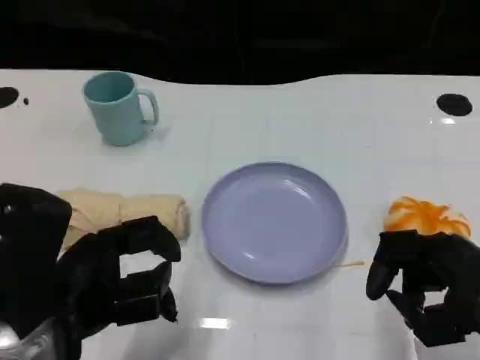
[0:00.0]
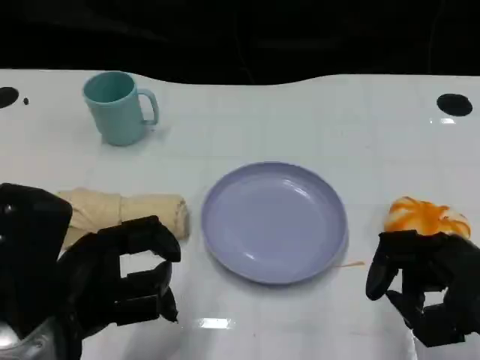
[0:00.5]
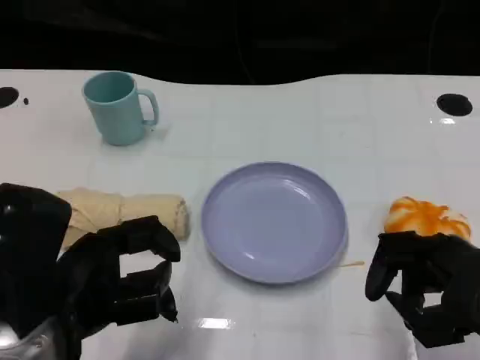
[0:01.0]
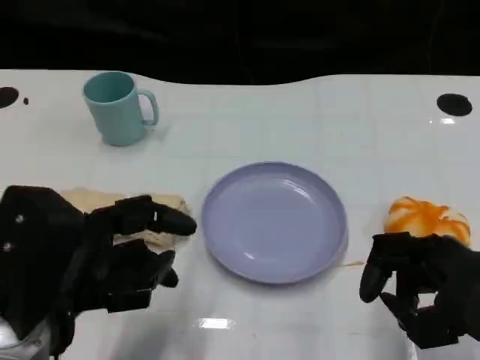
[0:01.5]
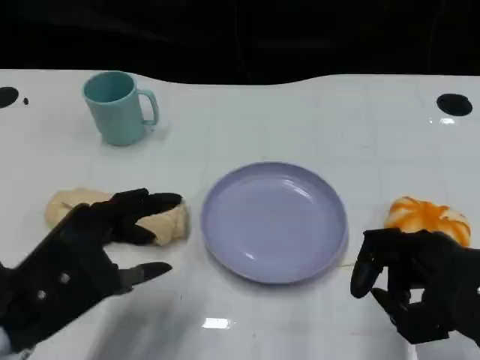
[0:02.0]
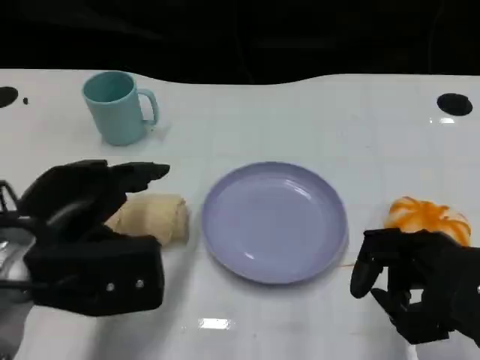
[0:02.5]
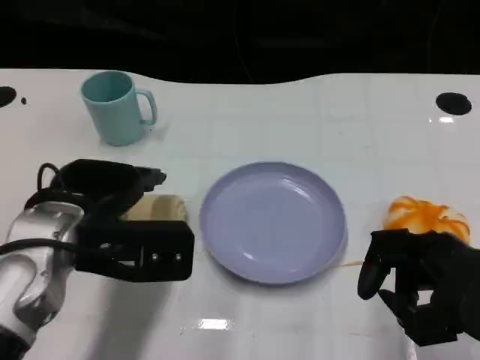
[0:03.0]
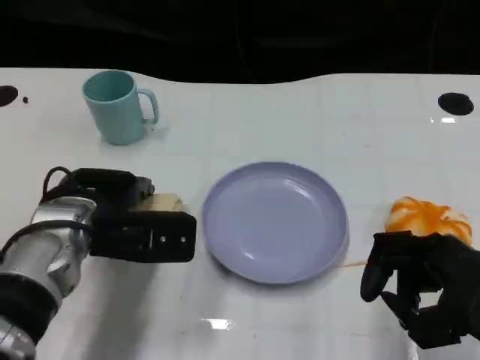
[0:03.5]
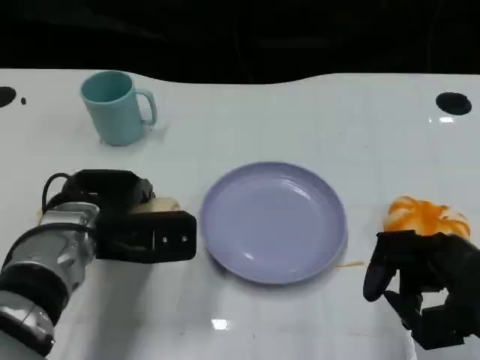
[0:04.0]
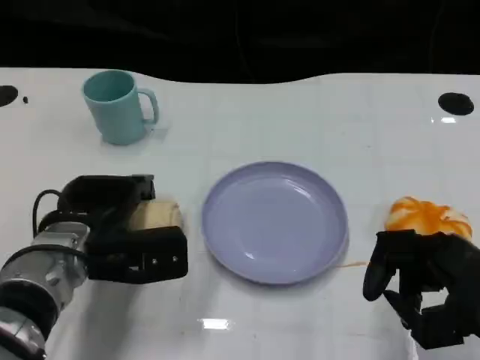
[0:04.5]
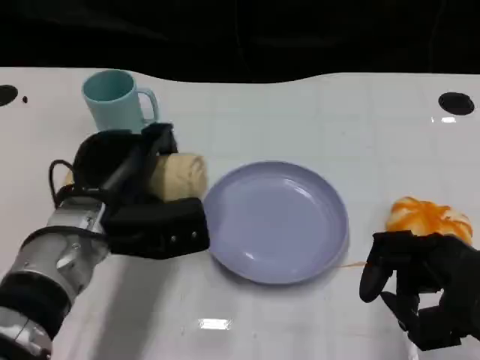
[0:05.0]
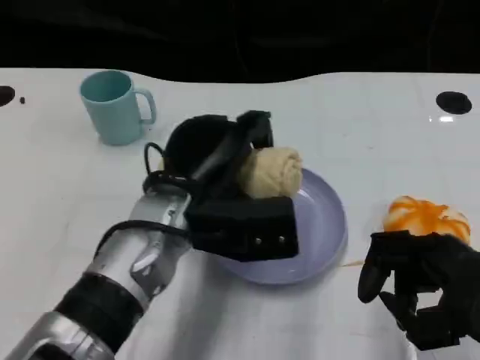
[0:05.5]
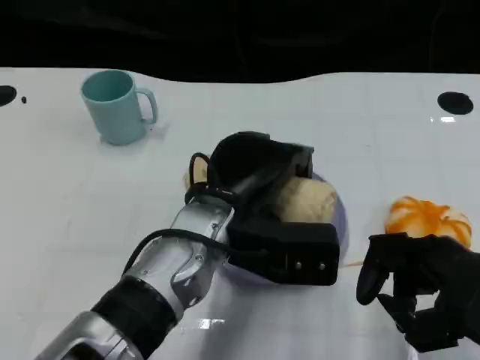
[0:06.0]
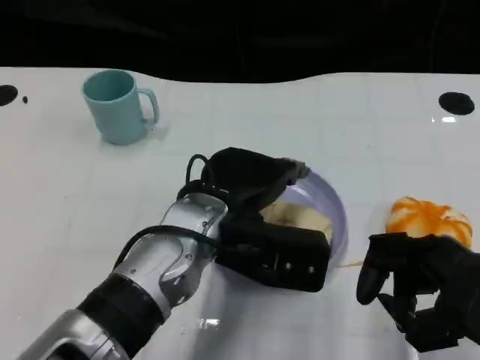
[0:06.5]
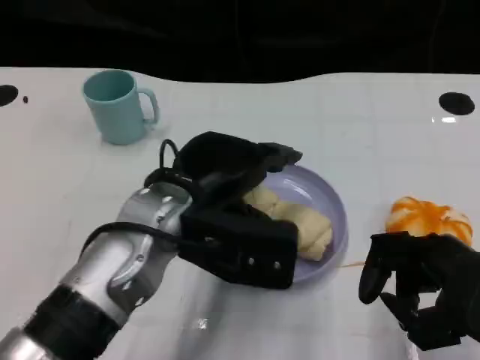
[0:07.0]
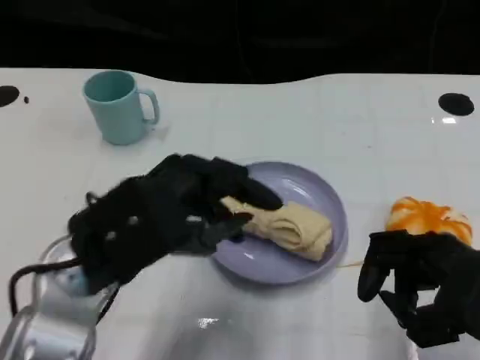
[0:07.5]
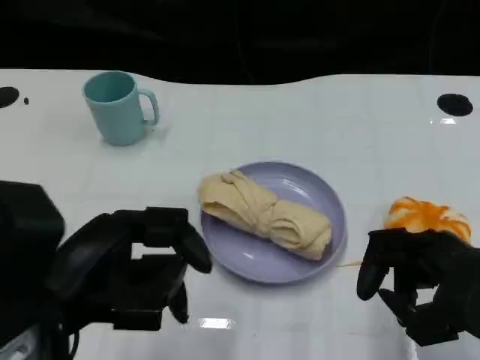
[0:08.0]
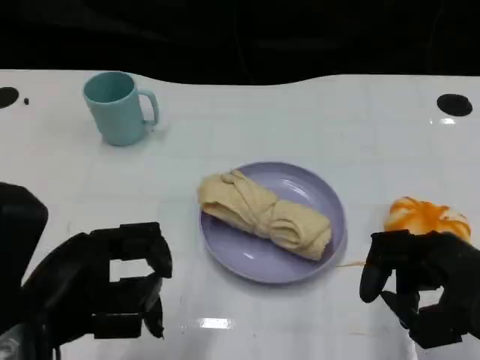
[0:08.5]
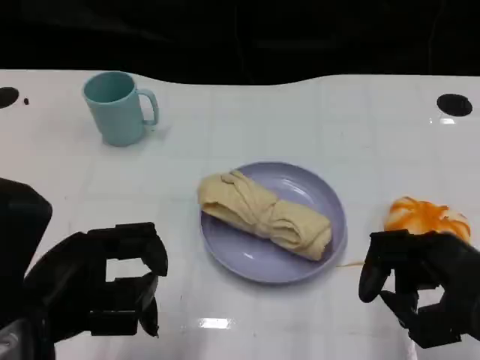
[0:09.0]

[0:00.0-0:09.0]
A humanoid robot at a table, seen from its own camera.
Task of the whole recording: Grasp the towel on the left side of the plate with the left hand and place it into the plate.
0:02.0 to 0:04.5: The left hand heads forward and downward, covering some 15 cm.
0:04.5 to 0:07.0: The left hand moves upward and to the right, roughly 15 cm.
0:07.0 to 0:09.0: The left hand goes about 15 cm to the left and backward.

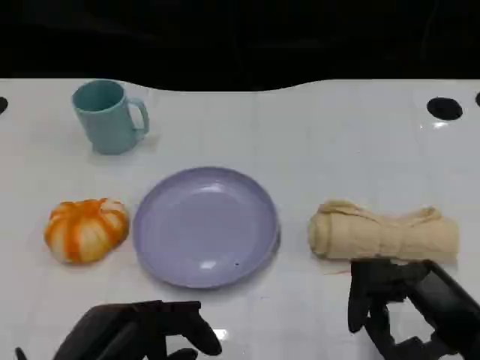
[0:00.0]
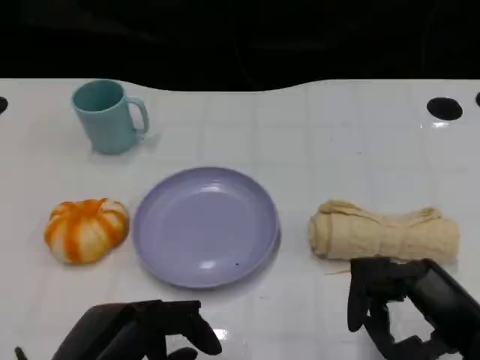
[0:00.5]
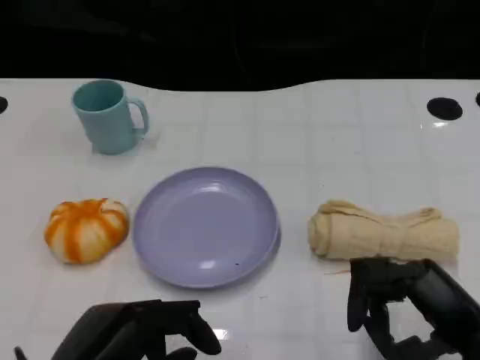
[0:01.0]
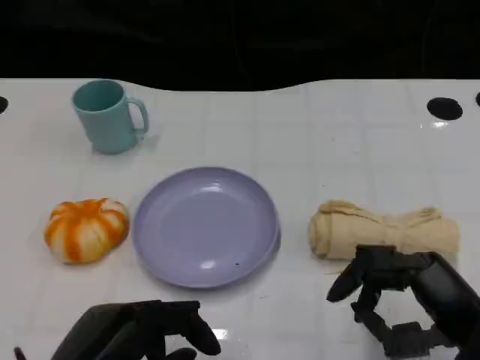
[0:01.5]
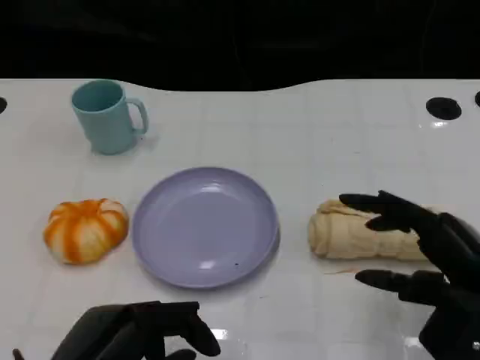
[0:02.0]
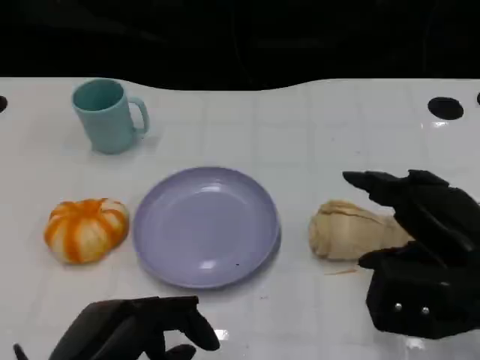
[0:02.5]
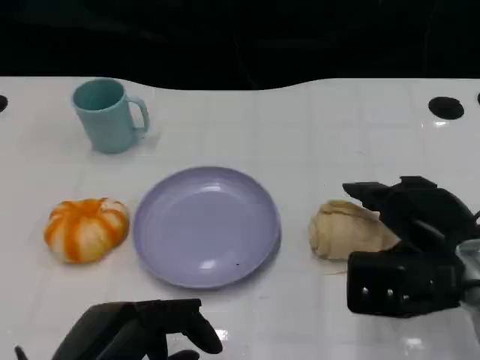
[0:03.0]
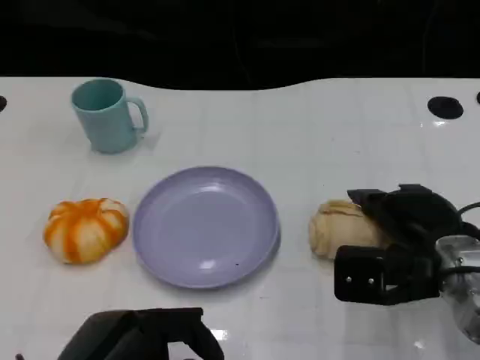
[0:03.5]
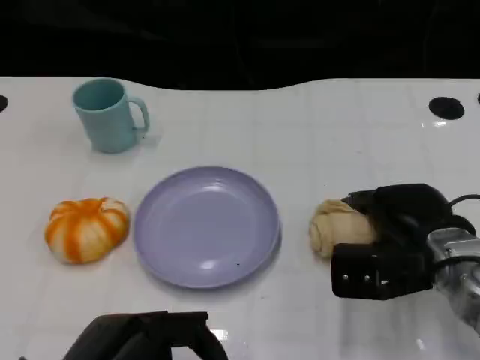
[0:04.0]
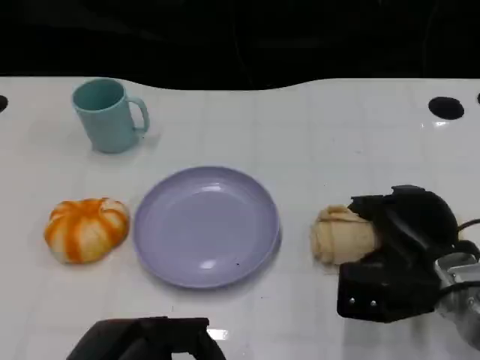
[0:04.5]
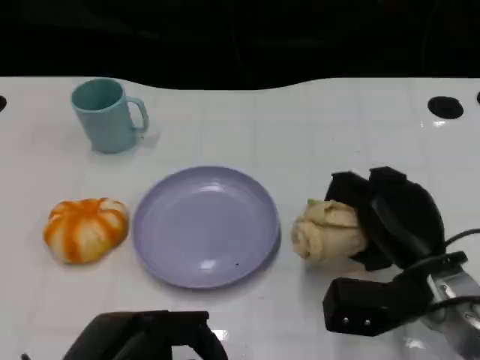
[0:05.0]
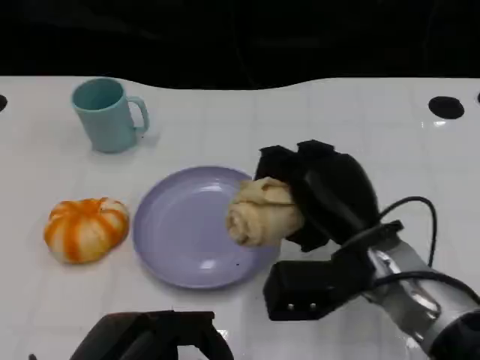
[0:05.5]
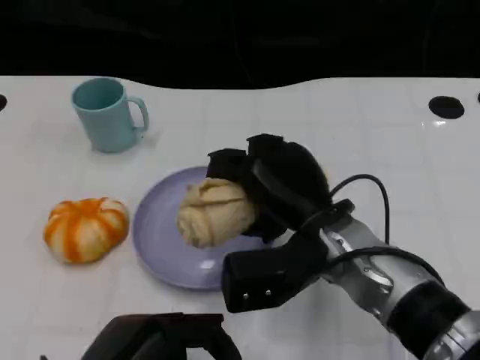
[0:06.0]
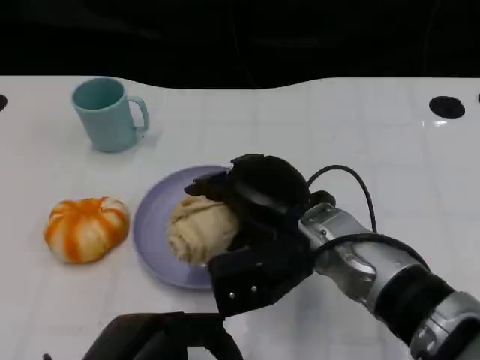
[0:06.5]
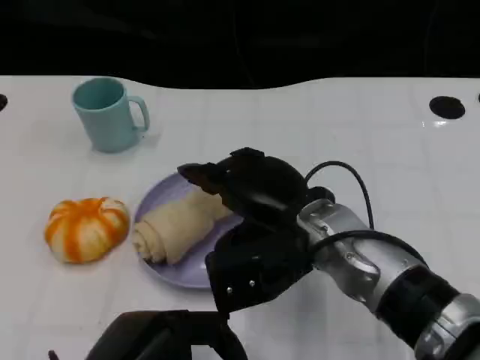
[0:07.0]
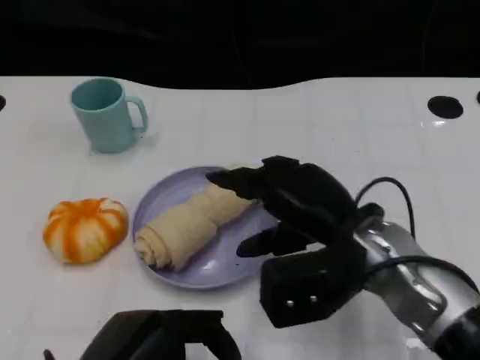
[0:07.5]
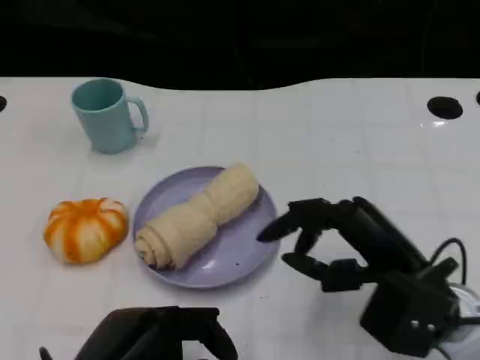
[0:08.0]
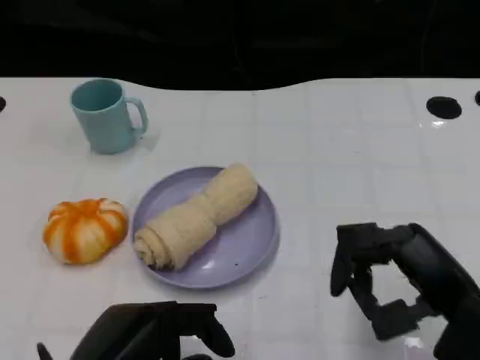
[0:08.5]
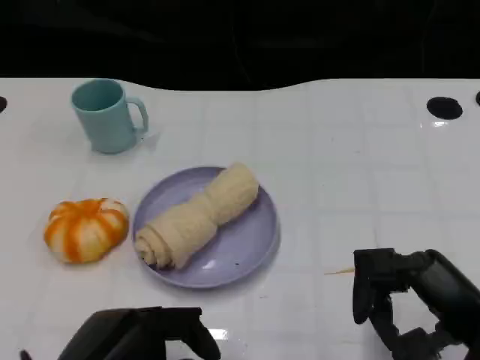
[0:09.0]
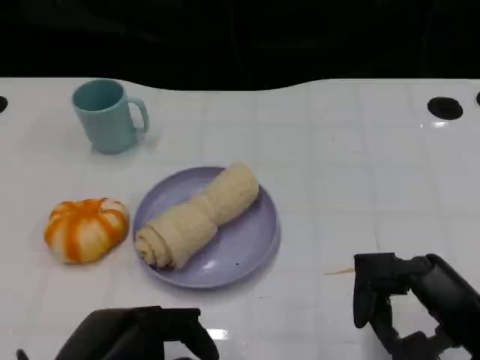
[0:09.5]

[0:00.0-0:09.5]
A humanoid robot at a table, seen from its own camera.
Task of the whole recording: Grasp the towel on the left side of the plate with the left hand and place it into the plate.
0:02.0 to 0:04.0: The right hand goes about 10 cm forward and downward.
0:04.0 to 0:05.5: The right hand goes about 10 cm to the left.
0:07.5 to 0:09.5: The right hand goes about 15 cm to the right and backward.

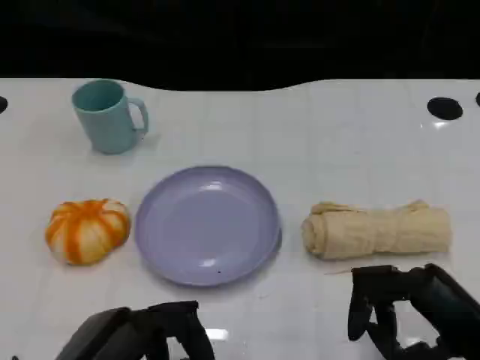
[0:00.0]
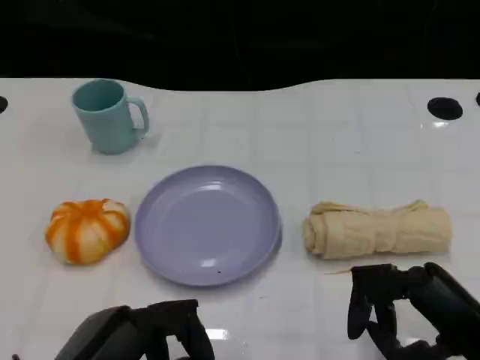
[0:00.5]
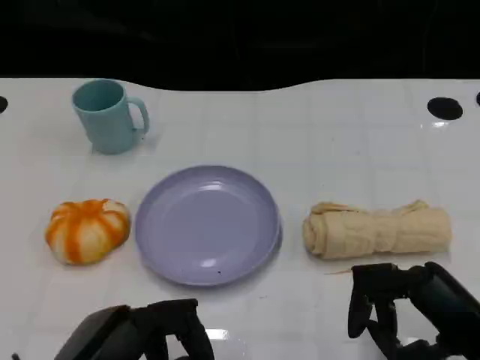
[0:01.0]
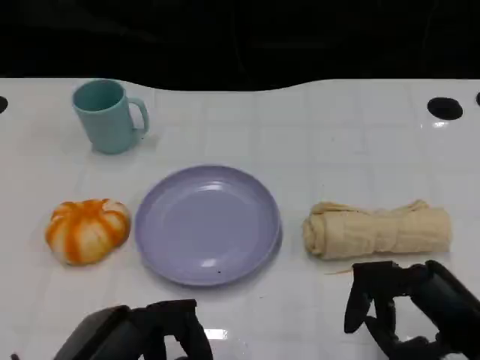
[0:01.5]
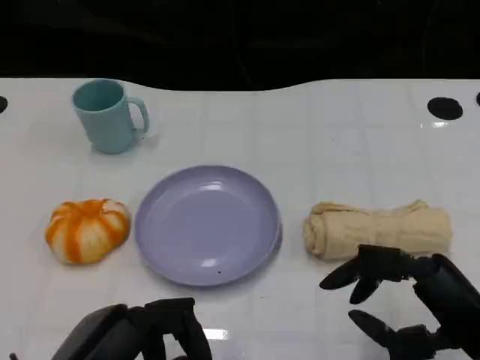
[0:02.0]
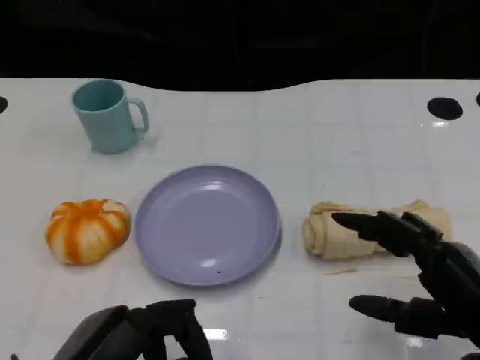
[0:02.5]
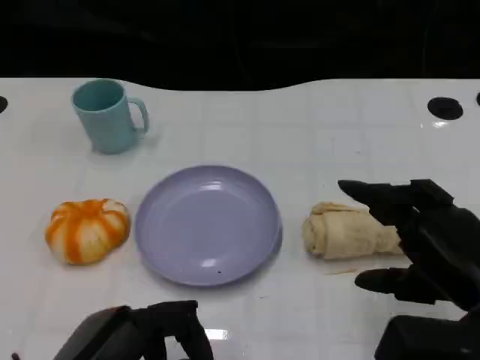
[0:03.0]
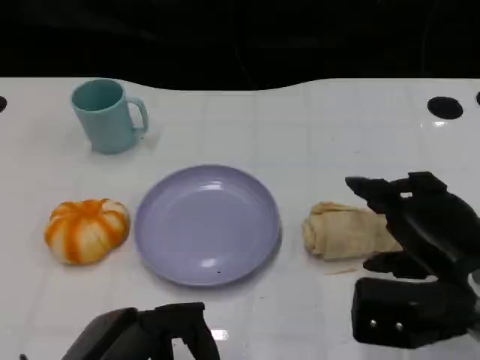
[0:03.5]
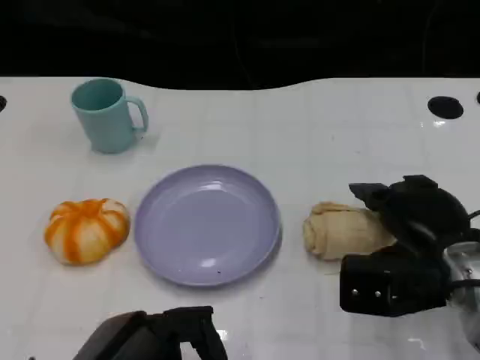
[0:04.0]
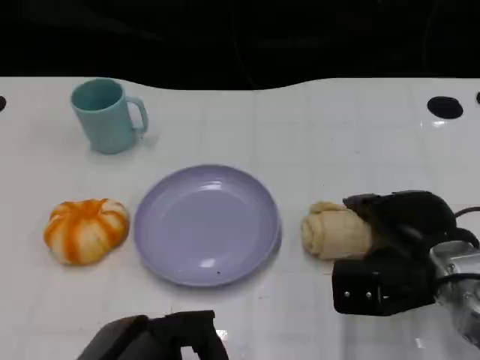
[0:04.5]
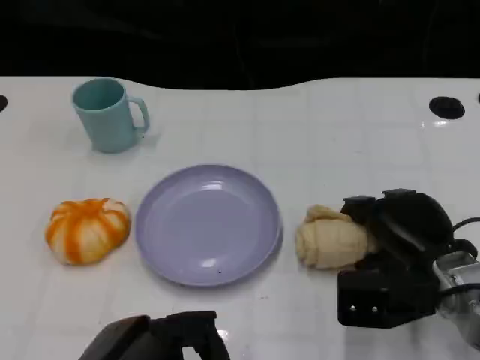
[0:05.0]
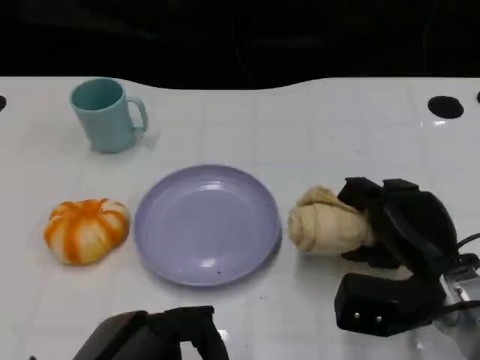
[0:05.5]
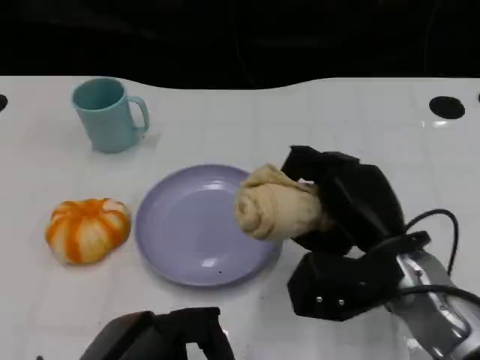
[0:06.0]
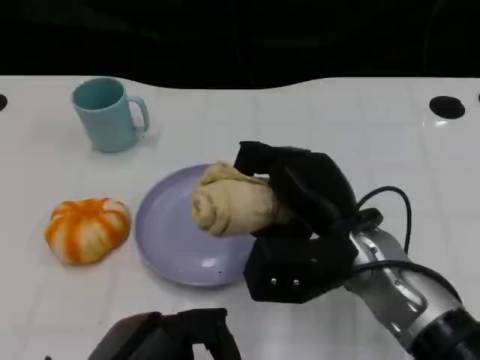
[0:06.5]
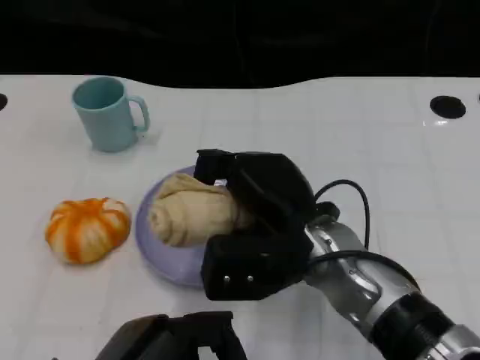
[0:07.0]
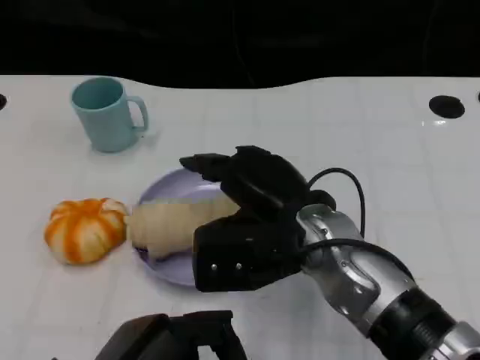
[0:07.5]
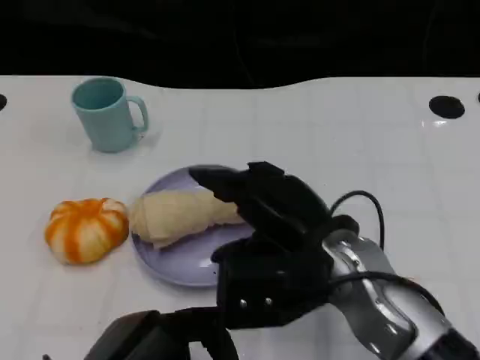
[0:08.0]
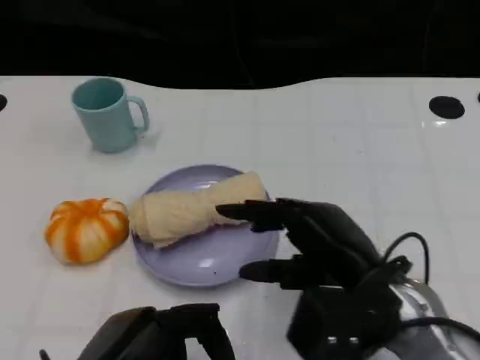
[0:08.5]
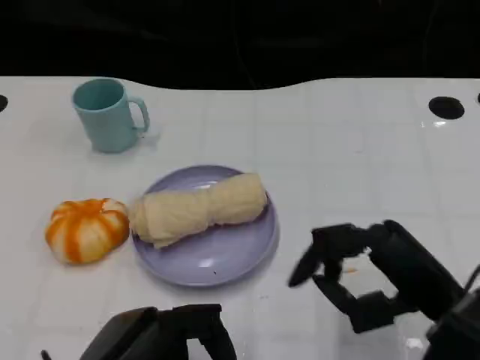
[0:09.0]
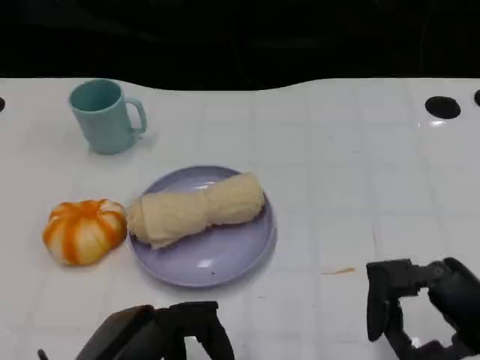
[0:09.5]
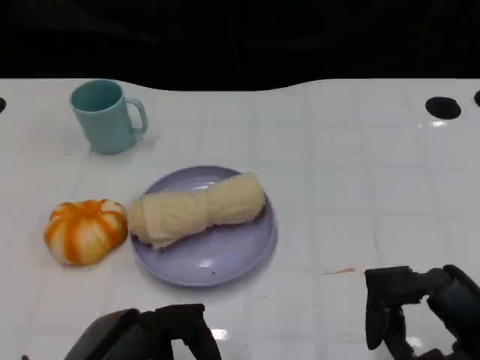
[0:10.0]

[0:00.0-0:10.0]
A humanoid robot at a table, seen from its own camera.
Task of the whole recording: Grasp the towel on the left side of the plate with the left hand and place it into the plate.
0:00.0 to 0:02.0: There are only small adjustments of the hands.
0:02.0 to 0:04.0: The right hand moves forward, about 10 cm.
0:04.0 to 0:06.0: The right hand goes about 5 cm to the left.
0:06.0 to 0:08.0: The right hand ends up some 5 cm from where it was.
0:08.0 to 0:10.0: The right hand travels to the right and backward by about 20 cm.
